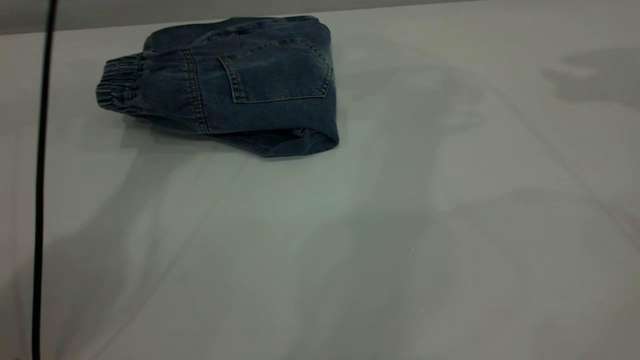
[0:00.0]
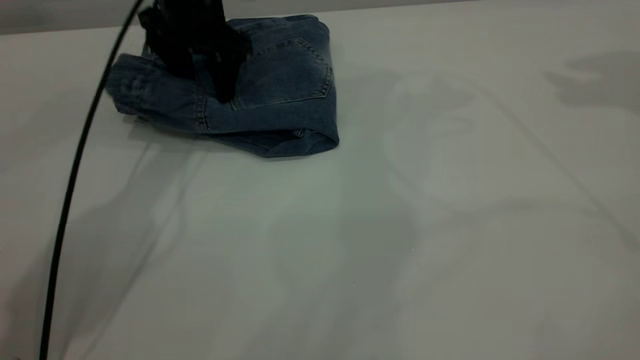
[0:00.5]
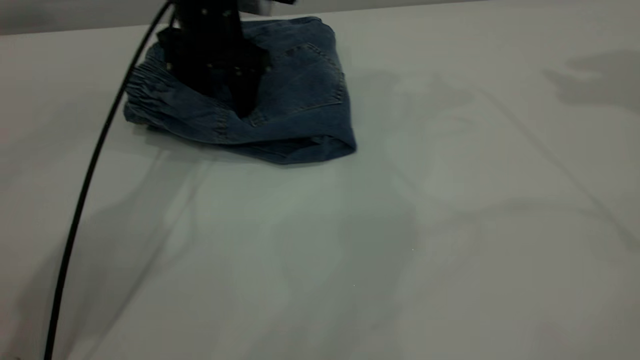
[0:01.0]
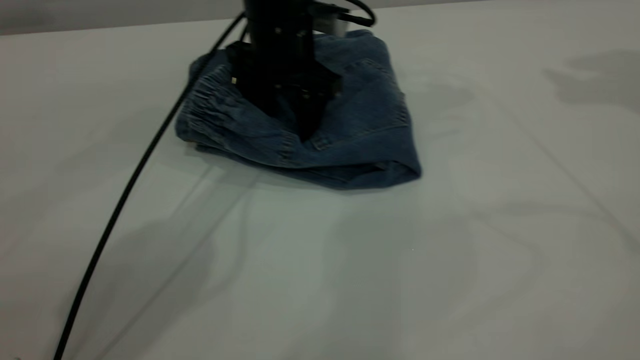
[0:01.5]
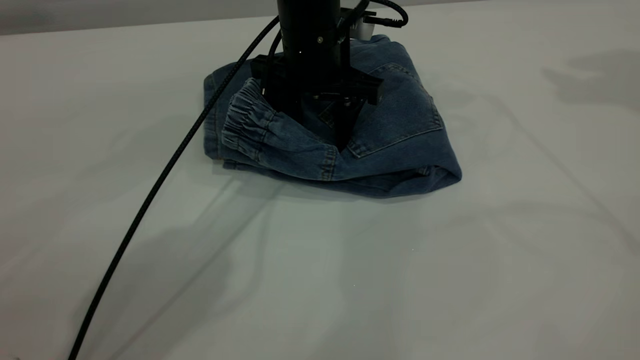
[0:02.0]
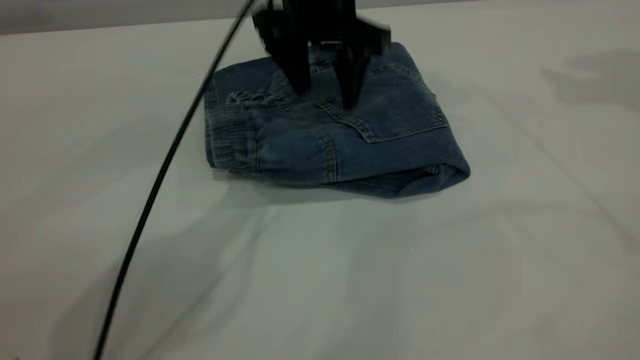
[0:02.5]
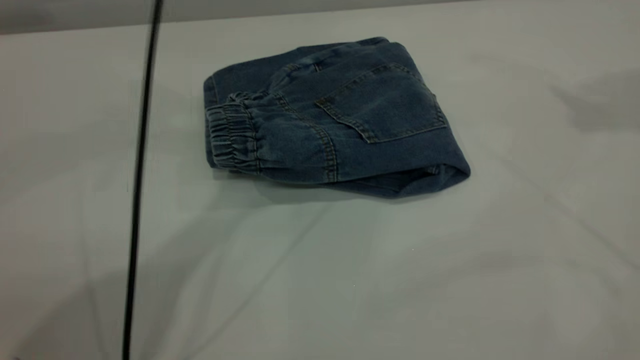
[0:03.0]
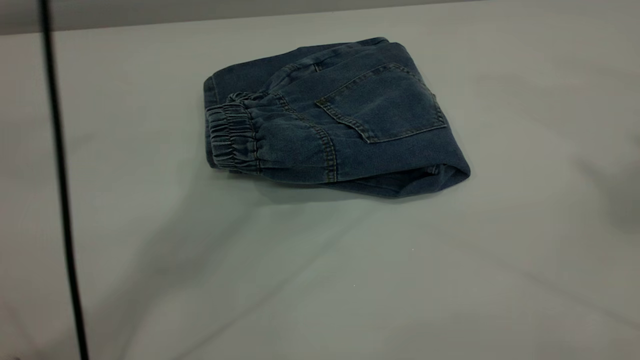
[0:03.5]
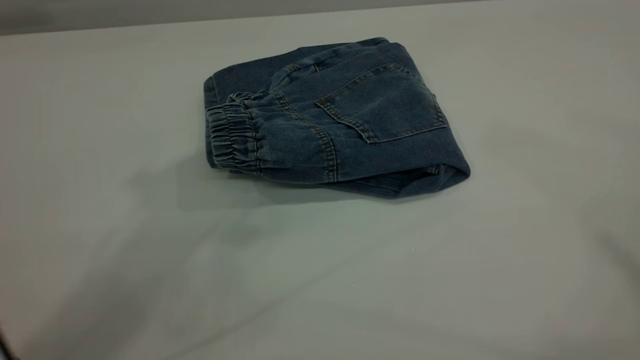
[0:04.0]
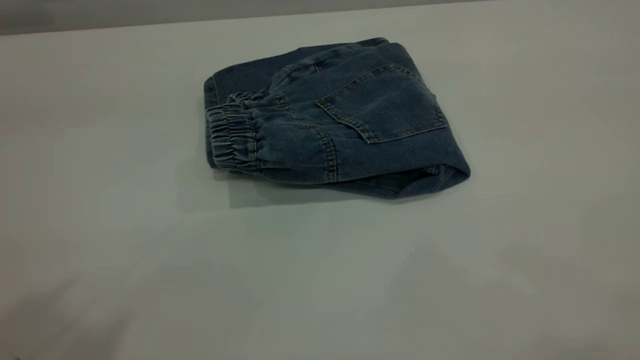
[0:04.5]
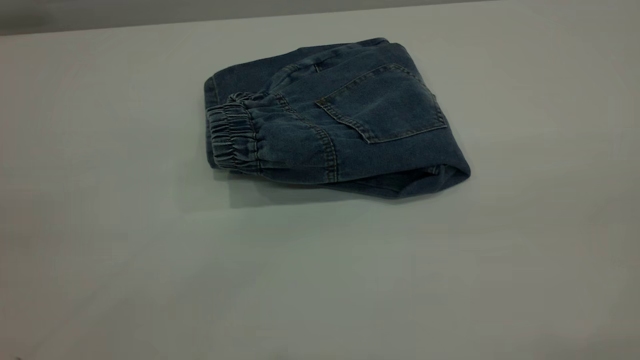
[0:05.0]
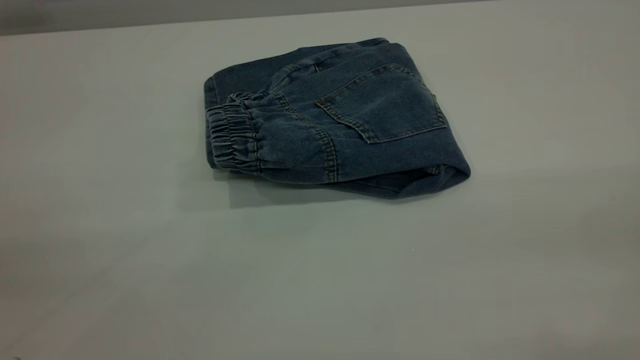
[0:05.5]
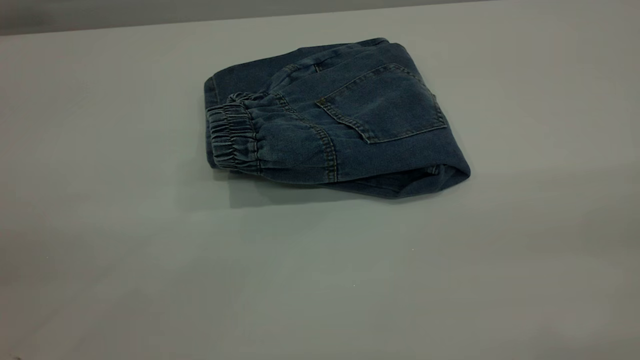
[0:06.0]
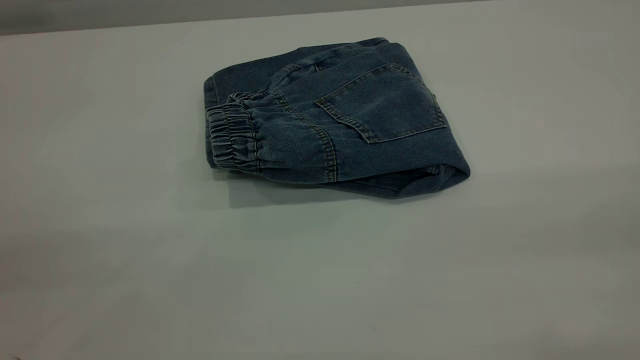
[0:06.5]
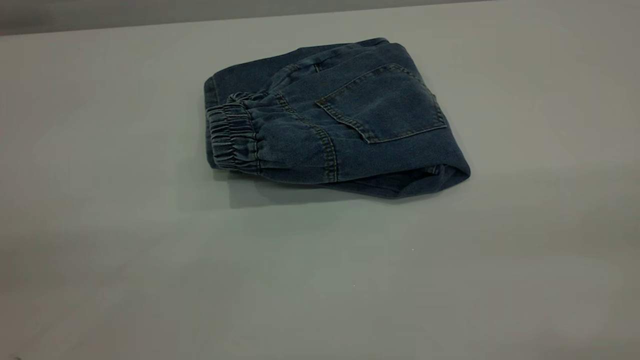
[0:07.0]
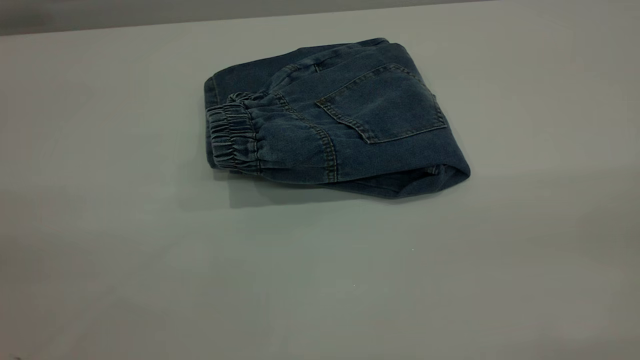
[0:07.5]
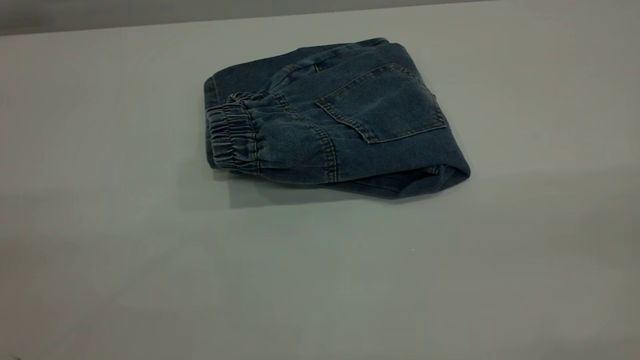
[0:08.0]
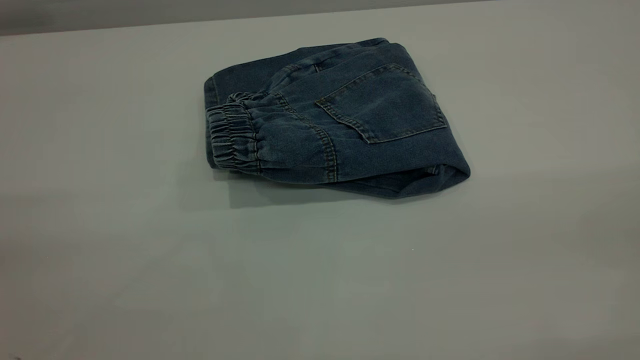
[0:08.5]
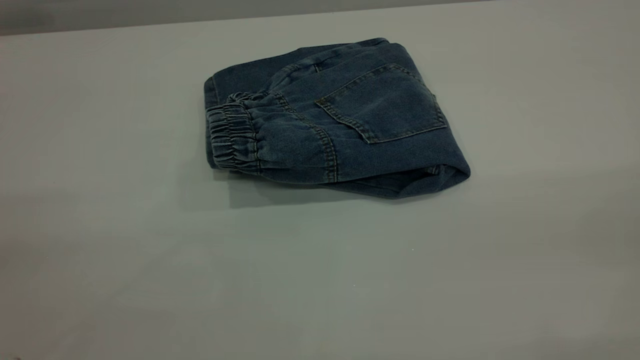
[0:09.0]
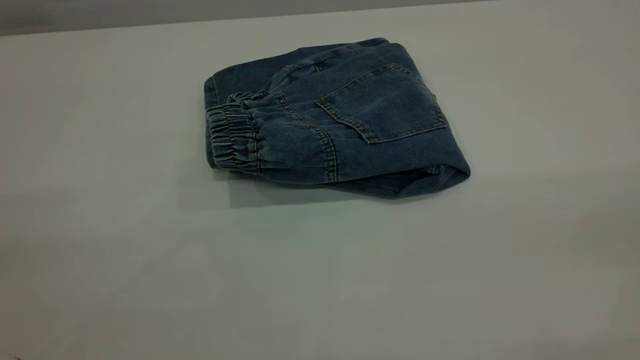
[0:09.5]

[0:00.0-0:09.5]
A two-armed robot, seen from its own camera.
0:00.0 to 0:02.0: The left gripper is displaced downward, to the right and backward by approximately 20 cm.
0:02.0 to 0:04.0: The right gripper heads backward and upward, covering about 35 cm; the left gripper is displaced upward and backward by approximately 40 cm.
